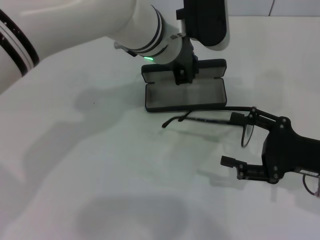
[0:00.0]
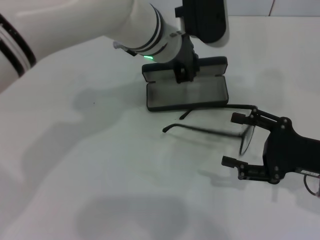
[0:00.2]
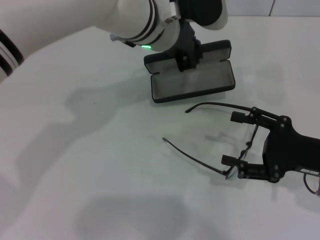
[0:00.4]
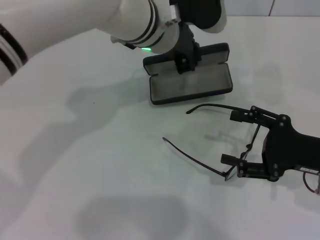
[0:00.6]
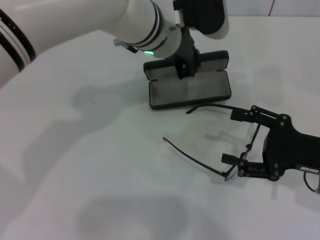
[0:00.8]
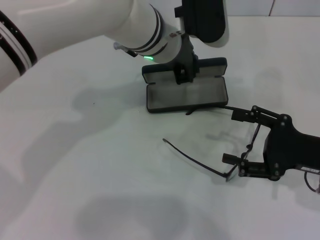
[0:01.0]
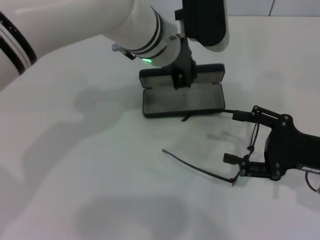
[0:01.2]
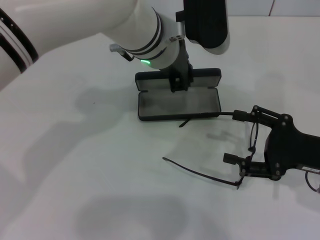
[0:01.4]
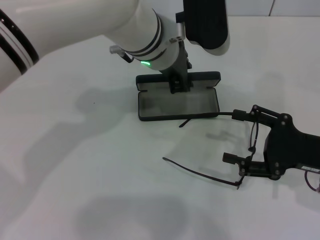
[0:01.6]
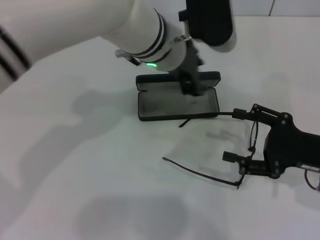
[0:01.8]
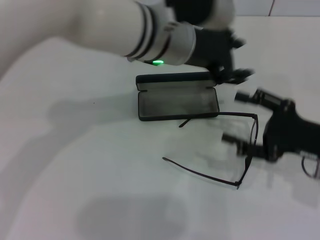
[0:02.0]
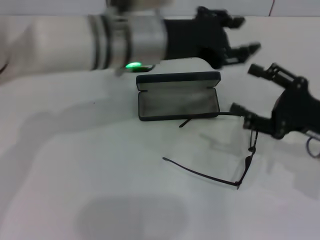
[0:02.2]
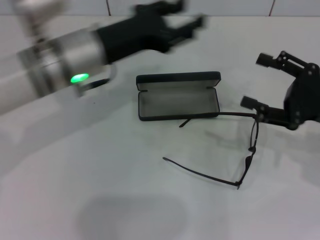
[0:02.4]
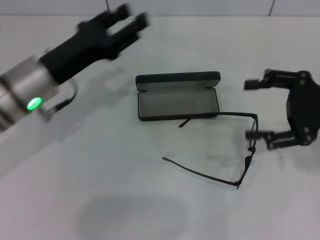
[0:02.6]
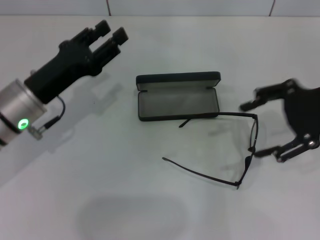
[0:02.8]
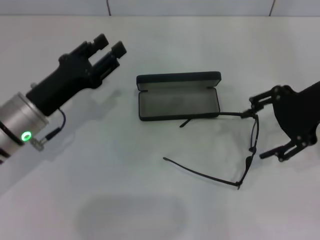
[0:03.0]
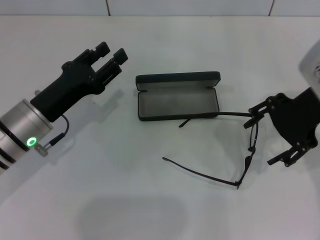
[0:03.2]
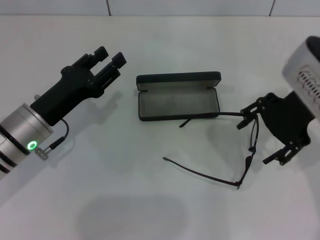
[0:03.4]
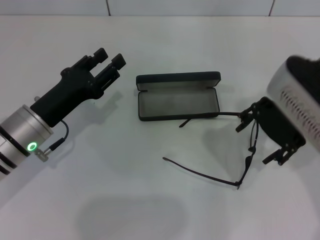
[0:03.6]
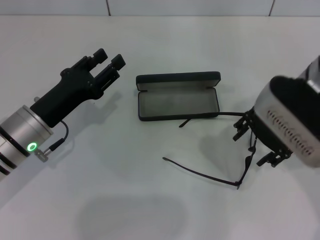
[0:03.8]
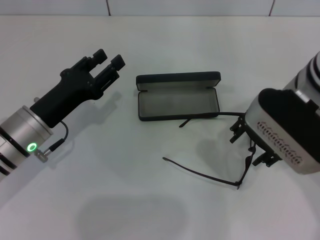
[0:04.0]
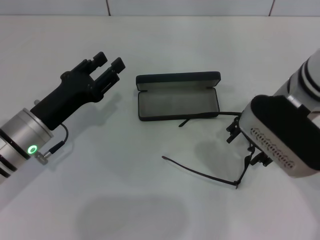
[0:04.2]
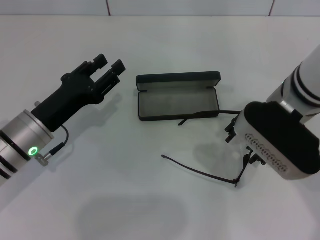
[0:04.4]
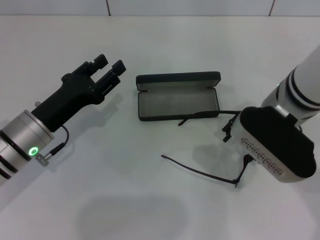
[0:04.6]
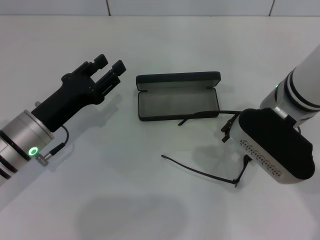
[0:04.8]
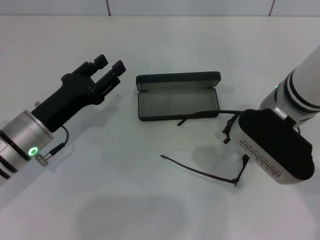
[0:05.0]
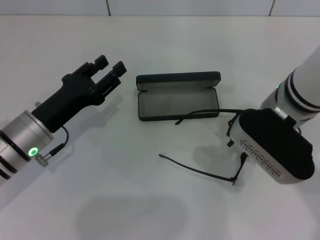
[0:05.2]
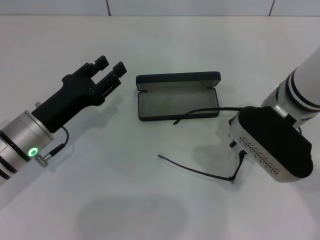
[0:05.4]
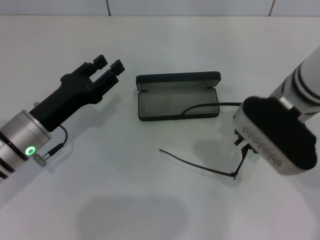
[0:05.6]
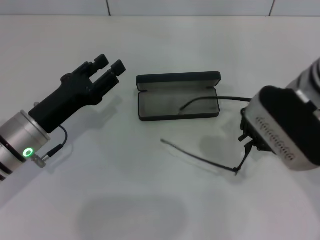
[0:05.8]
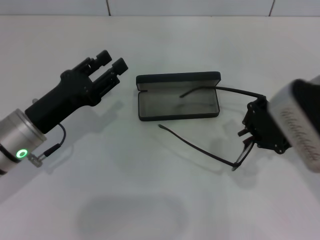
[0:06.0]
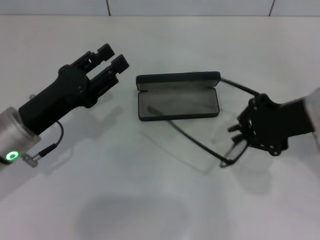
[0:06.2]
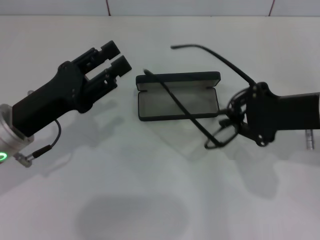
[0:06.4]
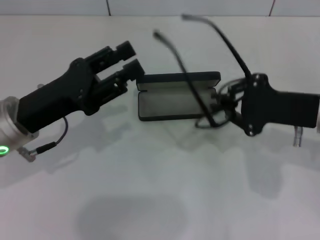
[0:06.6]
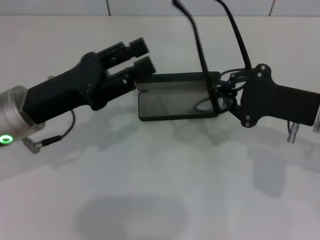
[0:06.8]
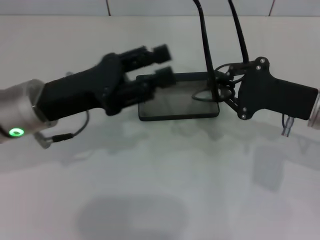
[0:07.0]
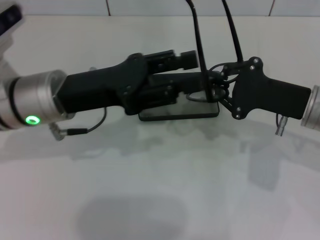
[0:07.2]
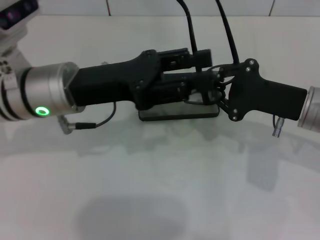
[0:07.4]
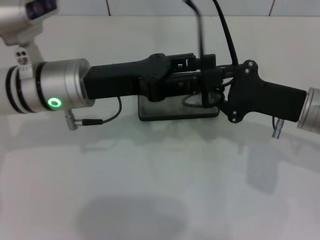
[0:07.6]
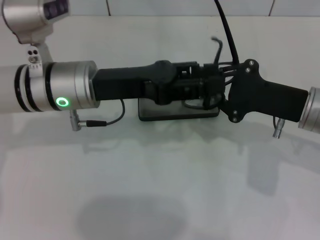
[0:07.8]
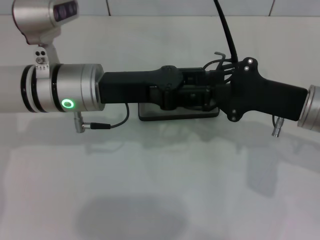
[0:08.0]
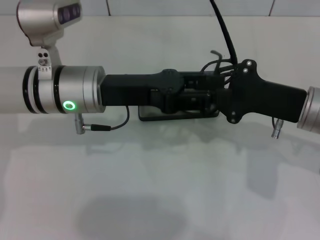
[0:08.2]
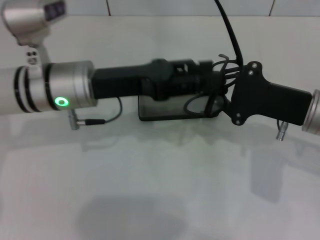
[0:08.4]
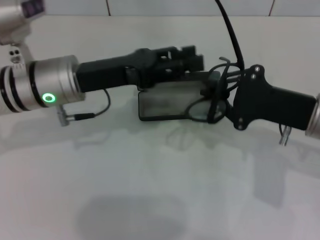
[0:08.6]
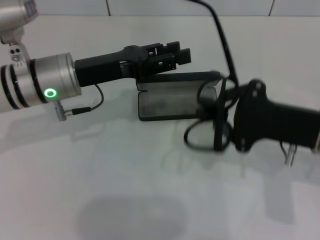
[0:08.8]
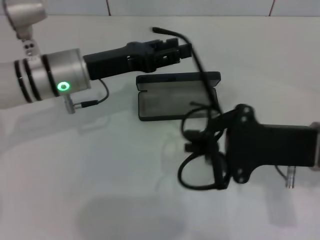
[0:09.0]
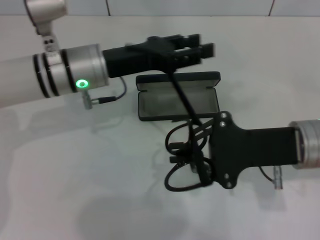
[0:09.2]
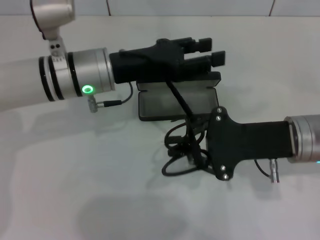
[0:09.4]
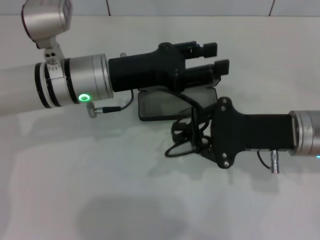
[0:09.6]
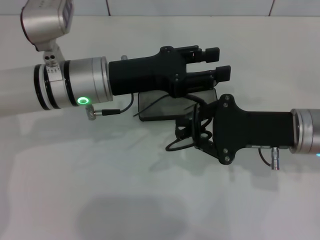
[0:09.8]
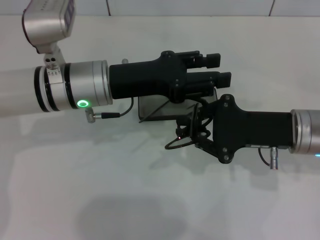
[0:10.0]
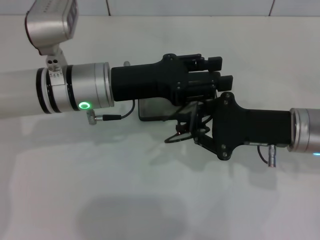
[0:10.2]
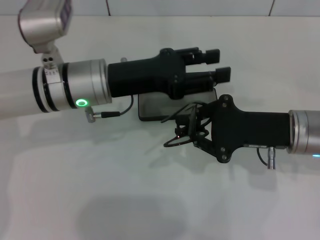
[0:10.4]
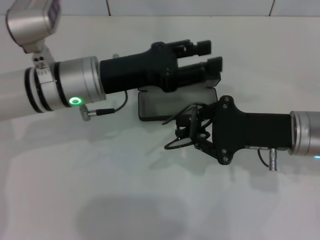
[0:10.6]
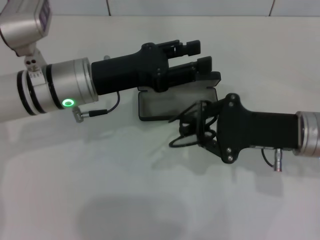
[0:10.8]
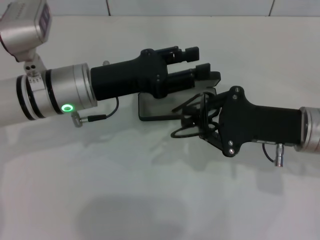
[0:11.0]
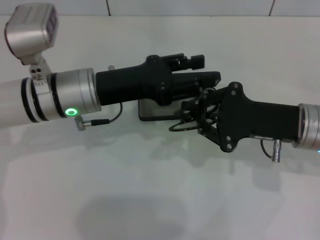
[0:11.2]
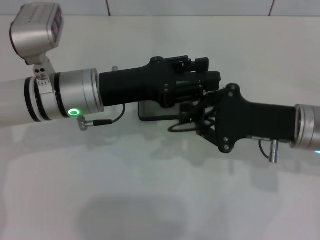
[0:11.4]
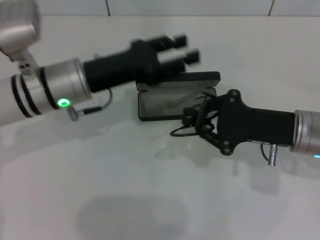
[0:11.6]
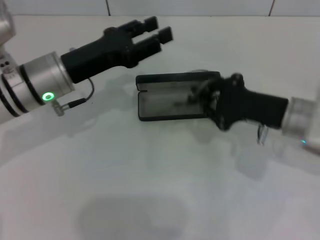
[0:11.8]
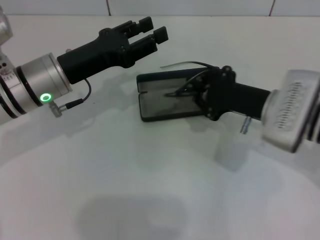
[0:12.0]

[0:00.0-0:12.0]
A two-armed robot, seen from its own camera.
Step, 0:01.8 to 0:05.2: Grab the eyeglass frame with your right hand.
Step, 0:05.4 to 0:10.0: Fold the frame with your left hand.
0:00.0 to 0:01.6: The grippers make only small movements.
0:01.6 to 0:03.0: The left gripper moves to the left, downward and backward, roughly 25 cm, and opens. Meanwhile the right gripper is displaced upward and forward by roughly 15 cm.
0:03.0 to 0:04.4: The right gripper is displaced to the left and downward by about 10 cm.
0:04.4 to 0:06.0: The right gripper closes.
0:06.0 to 0:07.6: The left gripper goes about 10 cm upward, to the right and forward. Meanwhile the right gripper shifts roughly 5 cm downward.
0:10.4 to 0:12.0: The left gripper goes roughly 5 cm to the left.

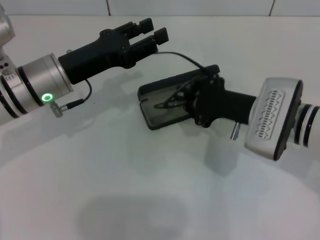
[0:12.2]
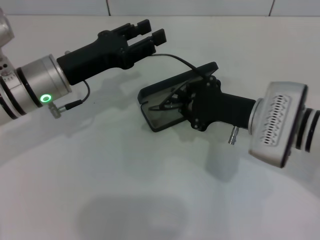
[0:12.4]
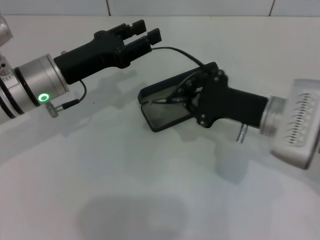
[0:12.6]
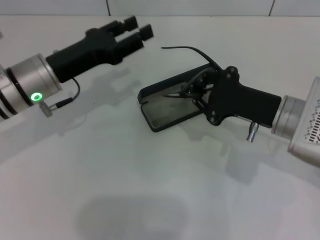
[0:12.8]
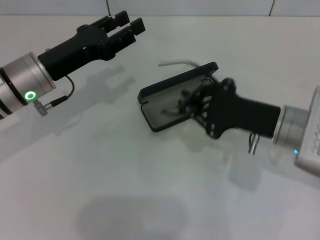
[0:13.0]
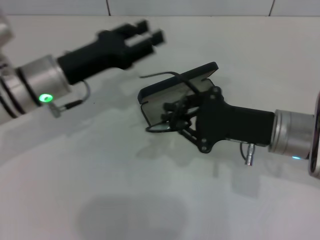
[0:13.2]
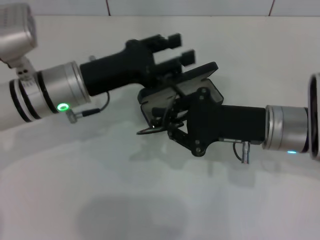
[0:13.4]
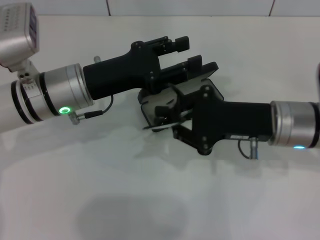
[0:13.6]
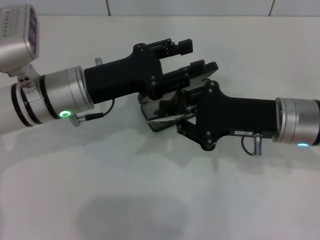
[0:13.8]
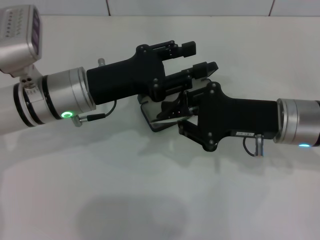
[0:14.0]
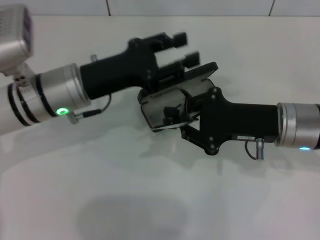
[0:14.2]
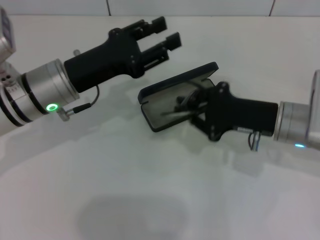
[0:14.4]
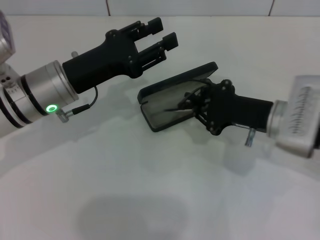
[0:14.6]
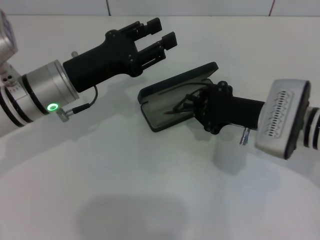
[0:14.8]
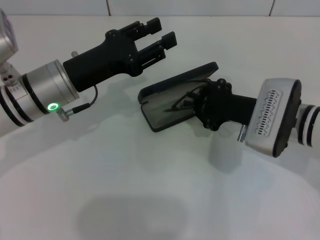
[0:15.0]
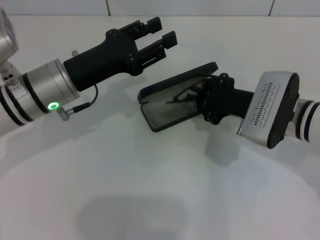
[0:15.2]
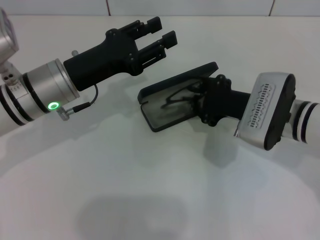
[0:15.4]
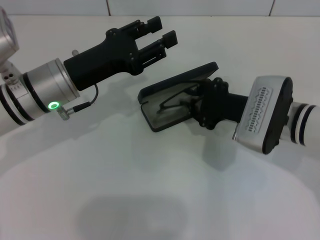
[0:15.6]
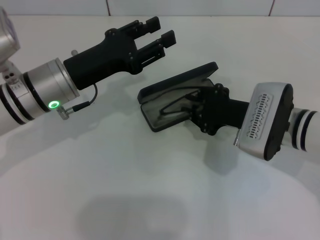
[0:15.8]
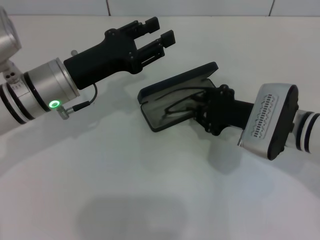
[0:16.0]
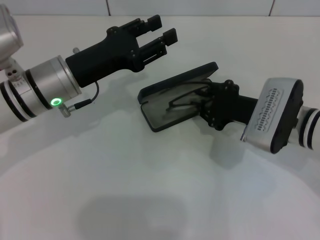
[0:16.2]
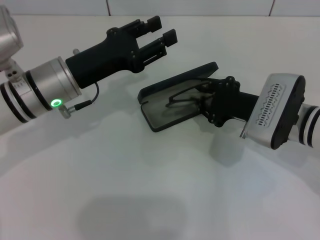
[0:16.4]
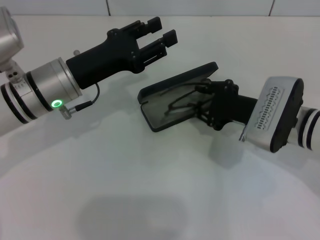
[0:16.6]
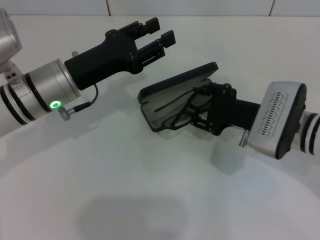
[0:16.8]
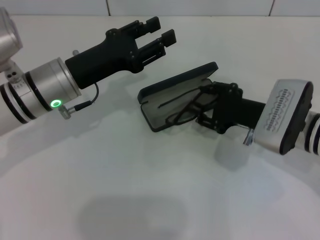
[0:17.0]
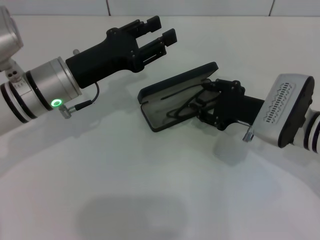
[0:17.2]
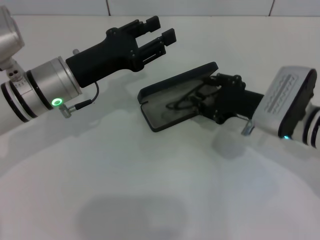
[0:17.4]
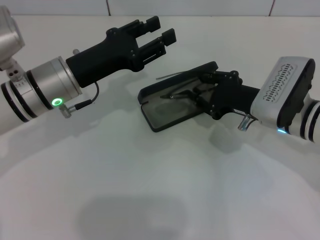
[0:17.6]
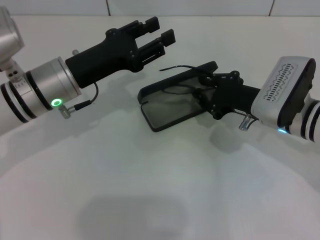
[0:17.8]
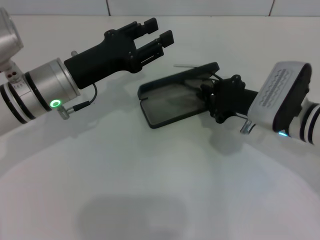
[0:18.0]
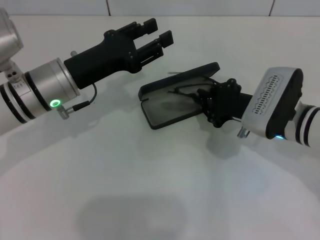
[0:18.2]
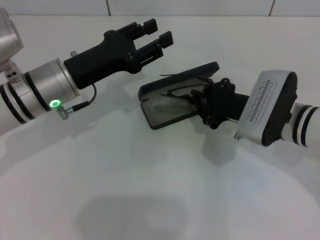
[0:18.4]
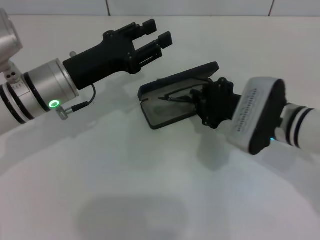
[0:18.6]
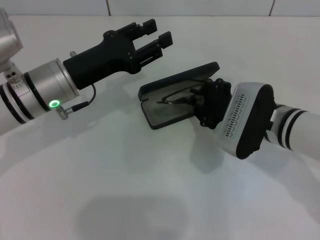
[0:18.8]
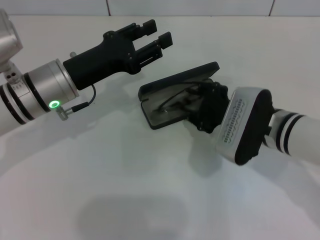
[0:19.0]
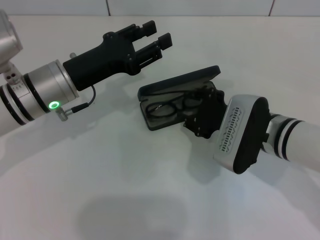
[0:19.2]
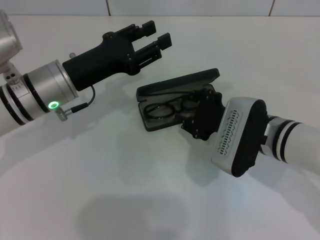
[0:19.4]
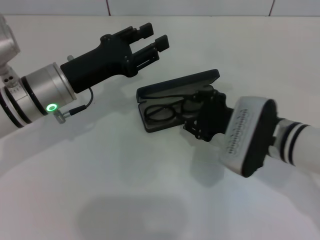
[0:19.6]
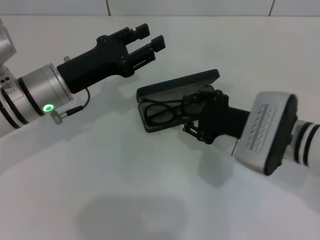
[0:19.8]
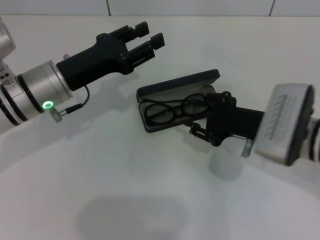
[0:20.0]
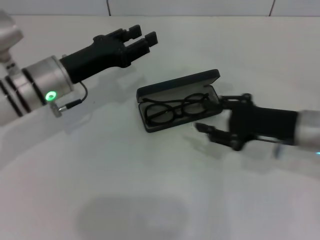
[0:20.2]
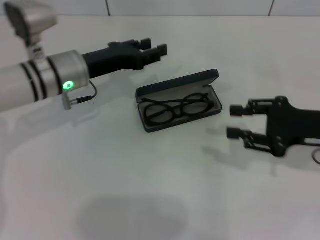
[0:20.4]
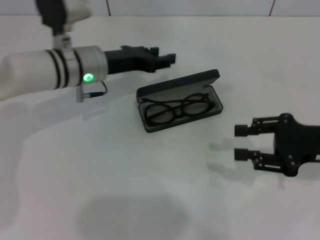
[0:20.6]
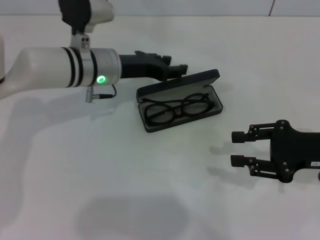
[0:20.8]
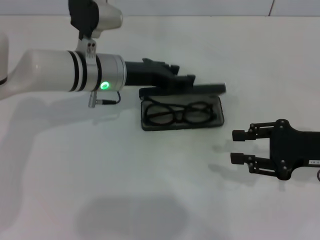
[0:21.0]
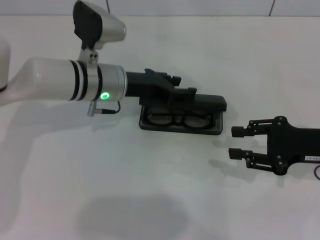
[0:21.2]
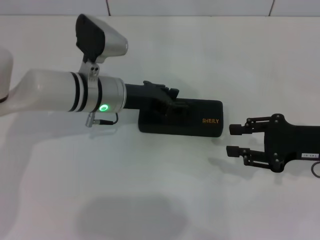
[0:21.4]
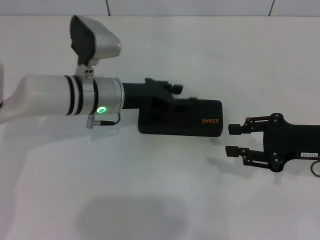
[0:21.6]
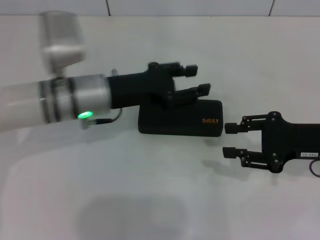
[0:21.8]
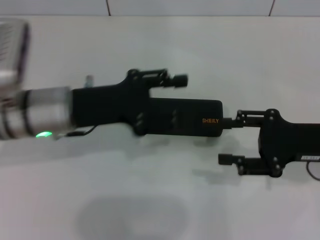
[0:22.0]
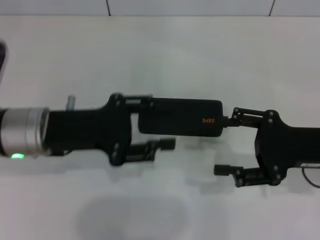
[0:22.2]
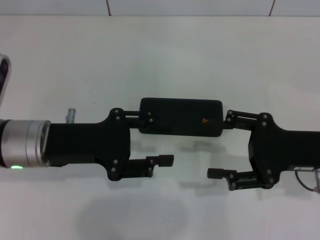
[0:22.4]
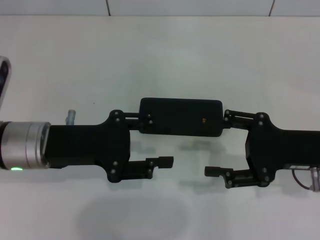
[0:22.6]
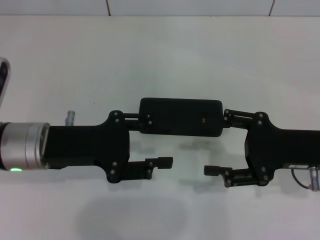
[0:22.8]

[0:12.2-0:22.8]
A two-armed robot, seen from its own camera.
Step, 0:12.2 to 0:19.8: Put the glasses into the case with your right hand.
Step, 0:20.0 to 0:21.4: Close the glasses case with your left hand.
0:13.8 to 0:15.2: The right gripper moves some 5 cm.
0:15.2 to 0:16.8: The right gripper opens up.
0:16.8 to 0:18.2: The right gripper closes up.
0:18.2 to 0:19.8: The right gripper opens up.
0:19.8 to 0:21.2: The left gripper shifts approximately 10 cm to the right and forward. Meanwhile the right gripper heads to the right, covering roughly 10 cm.
0:21.2 to 0:22.8: The right gripper opens its fingers, while the left gripper is displaced backward and to the left by roughly 15 cm.
